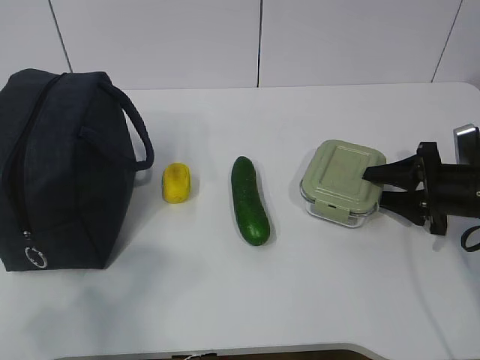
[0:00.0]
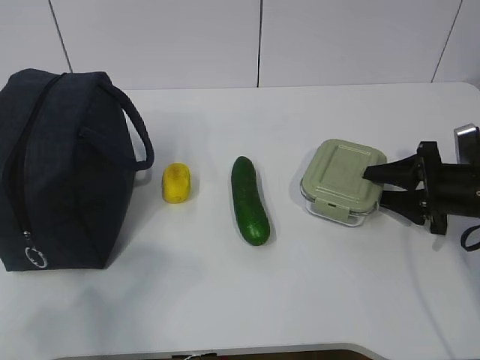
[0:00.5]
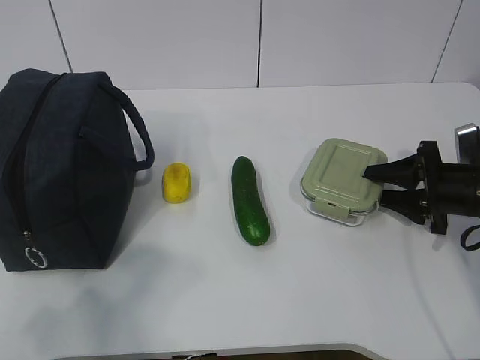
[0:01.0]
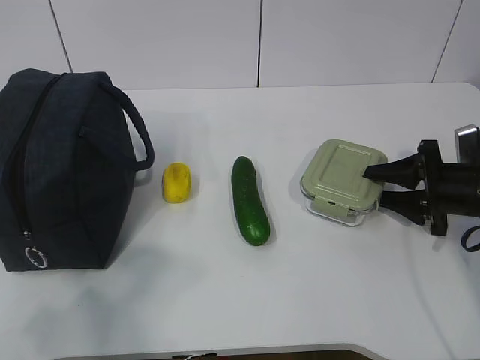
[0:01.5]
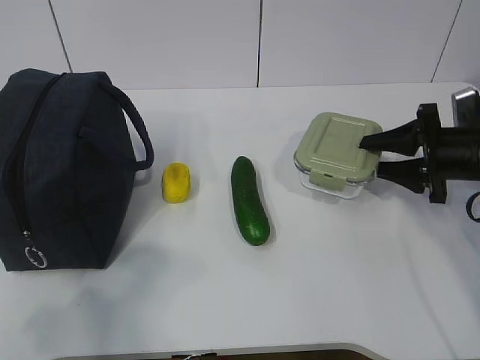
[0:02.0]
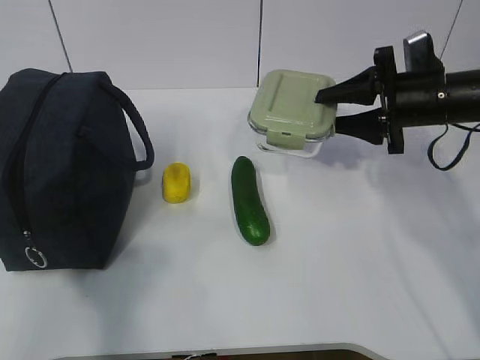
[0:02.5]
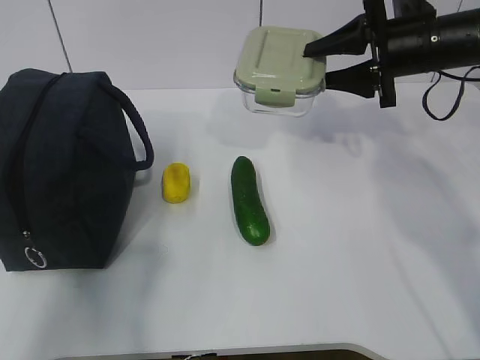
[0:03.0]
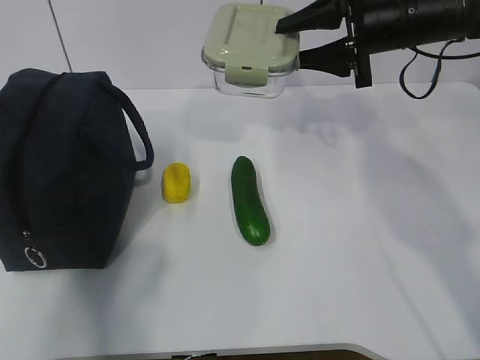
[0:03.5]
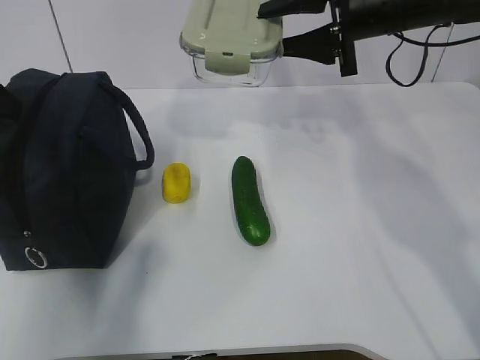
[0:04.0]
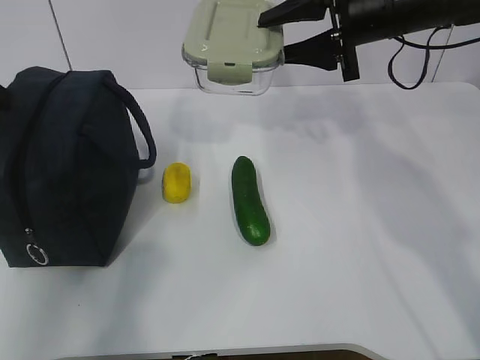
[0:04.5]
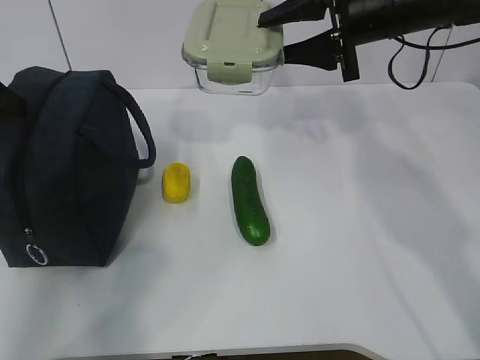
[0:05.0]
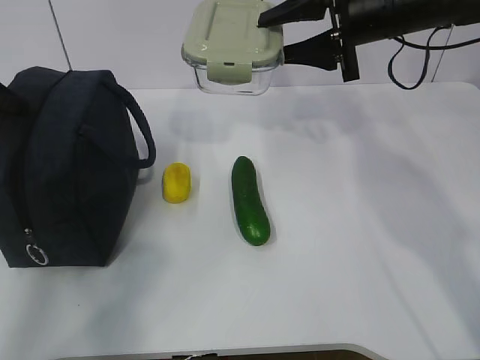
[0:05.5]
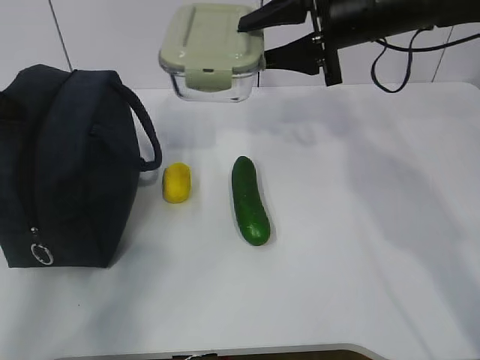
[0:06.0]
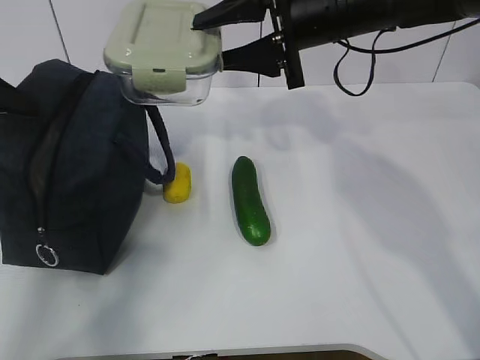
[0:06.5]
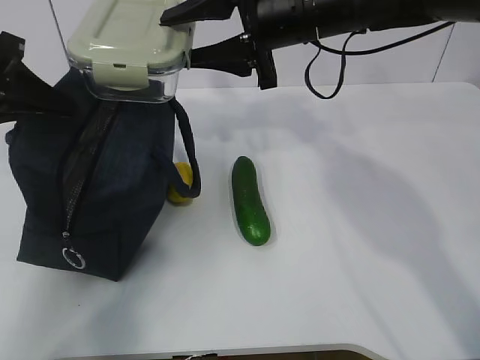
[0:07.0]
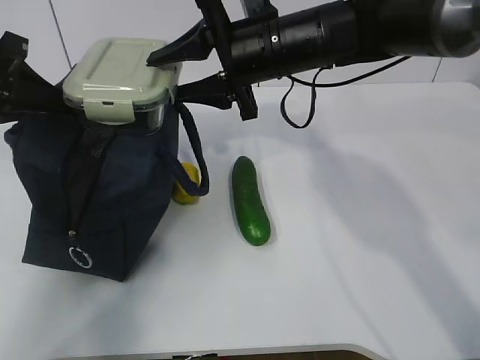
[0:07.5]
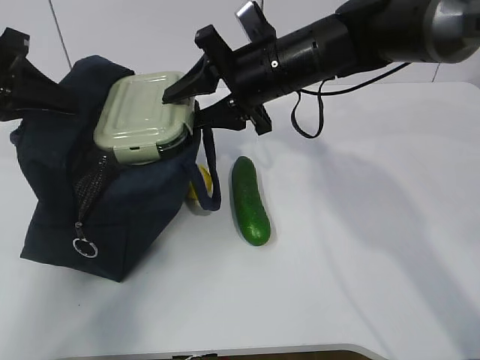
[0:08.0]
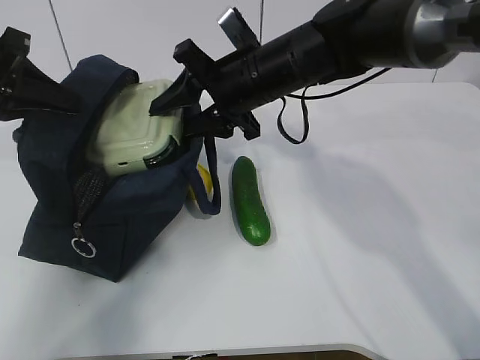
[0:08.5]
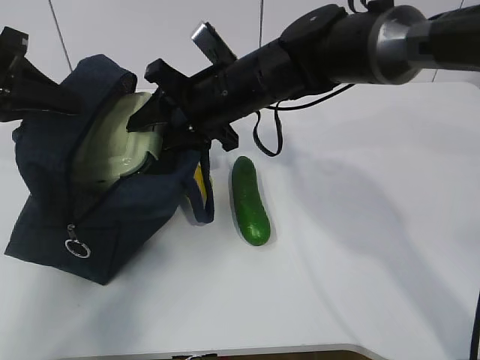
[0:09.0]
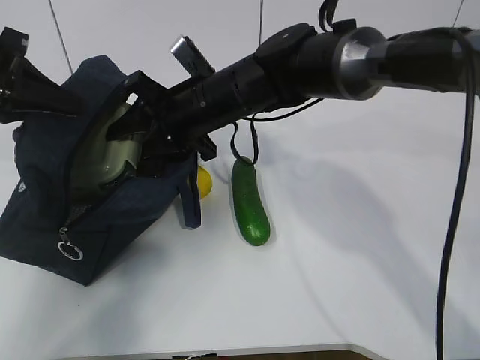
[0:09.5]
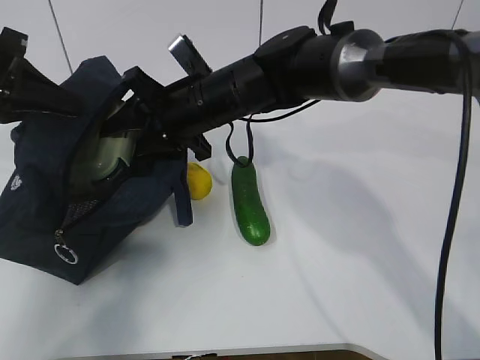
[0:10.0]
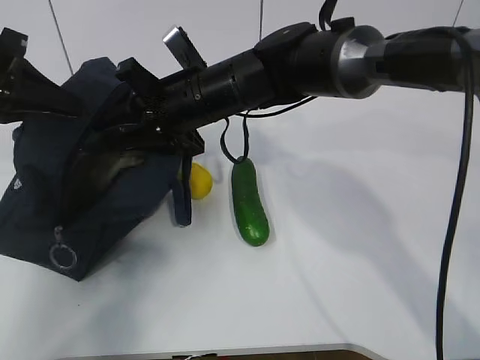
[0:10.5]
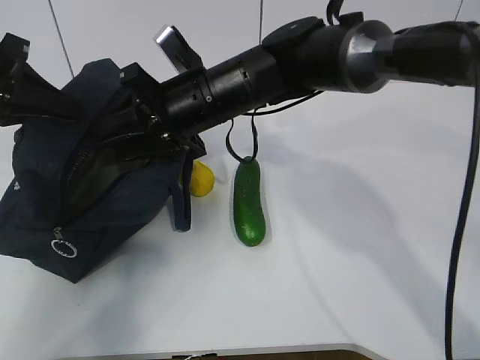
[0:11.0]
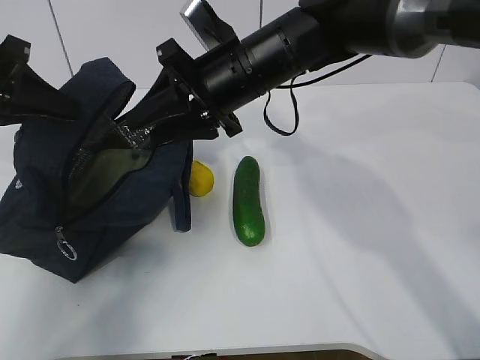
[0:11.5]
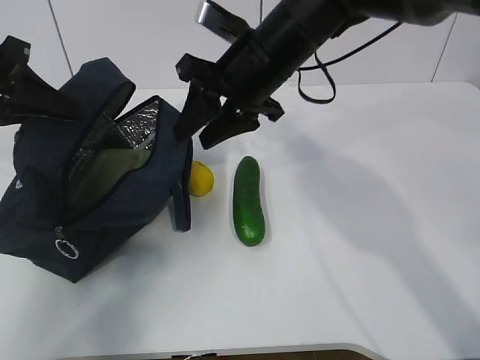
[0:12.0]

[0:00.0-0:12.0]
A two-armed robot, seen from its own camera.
Step, 0:00.0 to 0:04.0: Grab the lunch bag with your left hand.
Step, 0:04.5 to 0:06.5: Place it into the bag with your right hand.
Step, 0:07.0 to 0:11.0: Grab the cucumber with your right hand.
0:00.0 to 0:02.0: The grippers make only small movements.
0:02.0 to 0:04.0: The left gripper heads forward, covering approximately 30 cm; the right gripper goes roughly 20 cm upward and to the left.
0:04.0 to 0:06.0: The left gripper moves roughly 5 cm, and closes.
0:06.0 to 0:08.0: The left gripper goes some 5 cm to the right, while the right gripper travels to the left and downward by roughly 10 cm.
0:08.0 to 0:10.0: The right gripper heads to the left, covering approximately 10 cm.
0:10.0 to 0:12.0: The right gripper shifts about 10 cm to the right and upward.

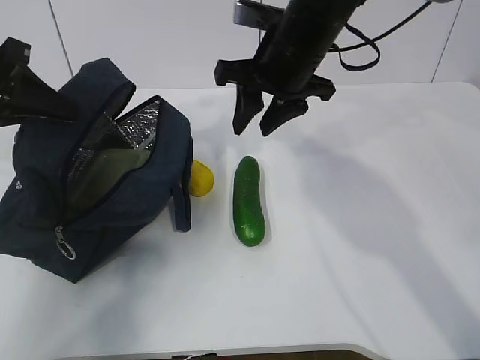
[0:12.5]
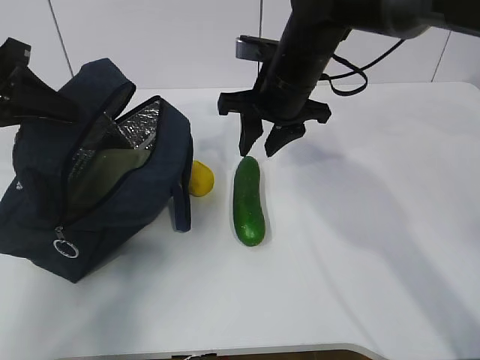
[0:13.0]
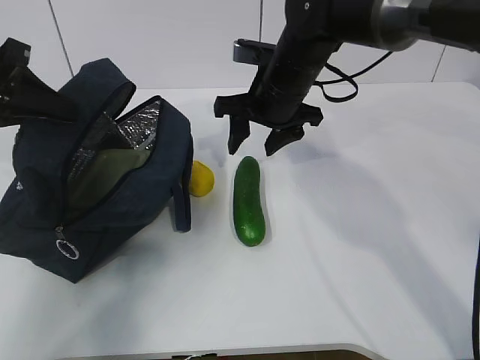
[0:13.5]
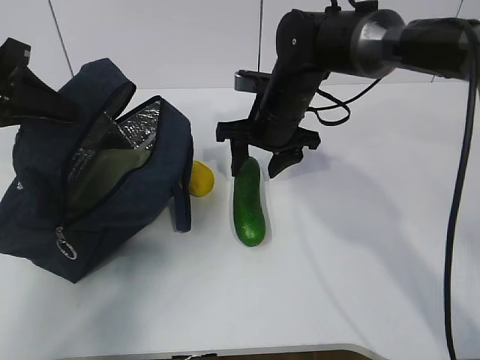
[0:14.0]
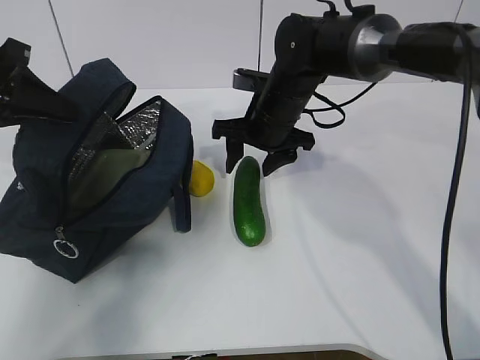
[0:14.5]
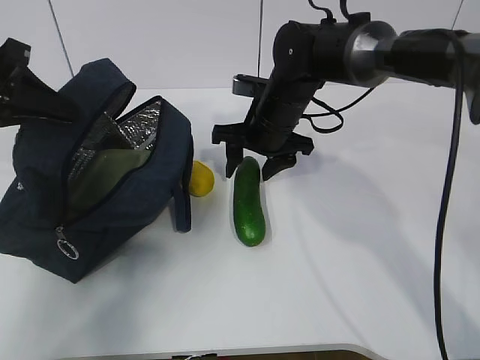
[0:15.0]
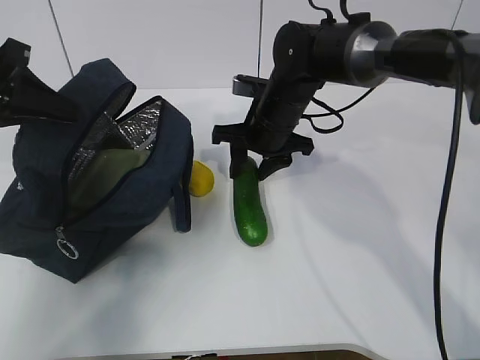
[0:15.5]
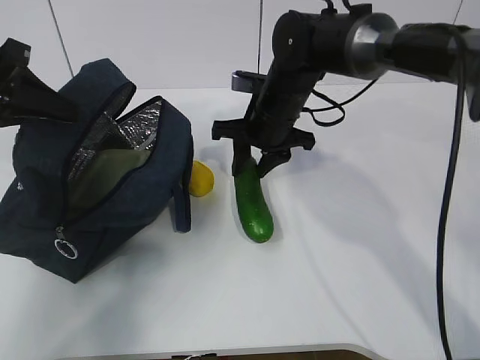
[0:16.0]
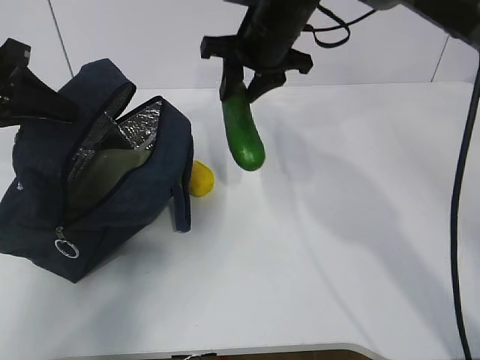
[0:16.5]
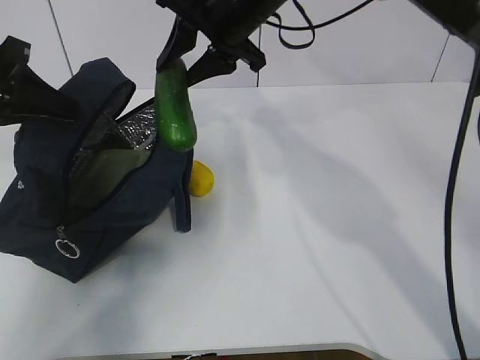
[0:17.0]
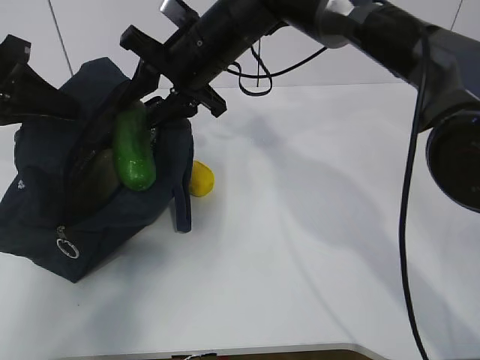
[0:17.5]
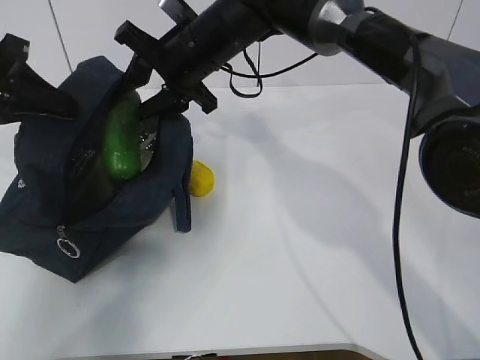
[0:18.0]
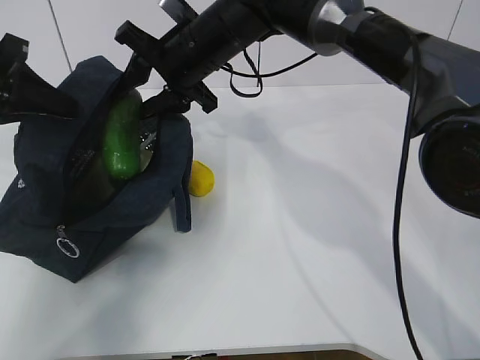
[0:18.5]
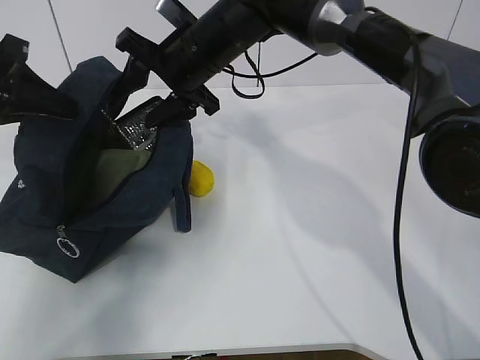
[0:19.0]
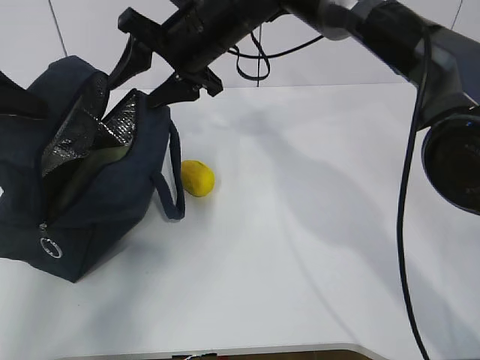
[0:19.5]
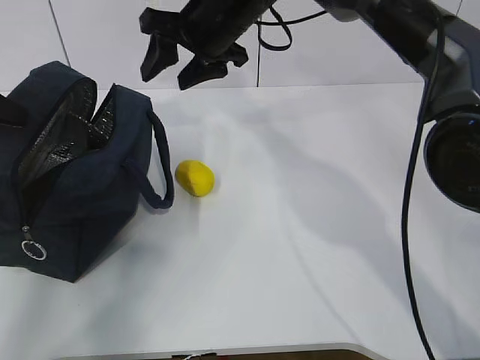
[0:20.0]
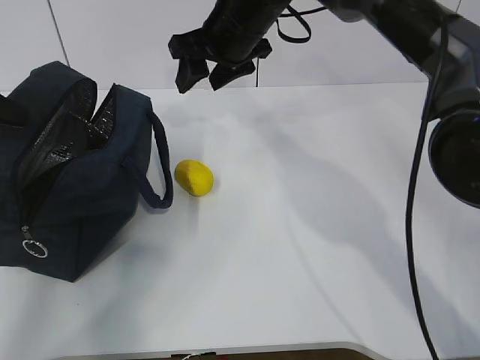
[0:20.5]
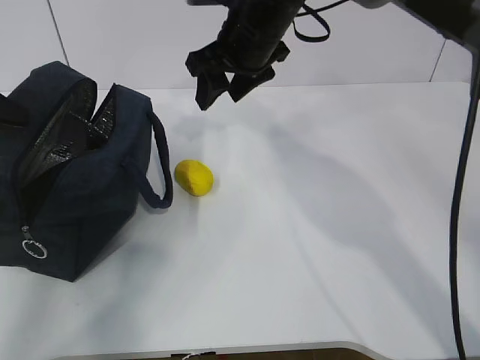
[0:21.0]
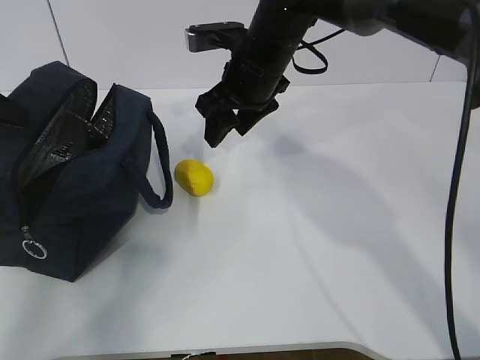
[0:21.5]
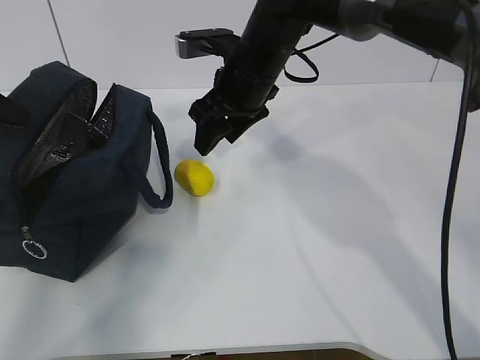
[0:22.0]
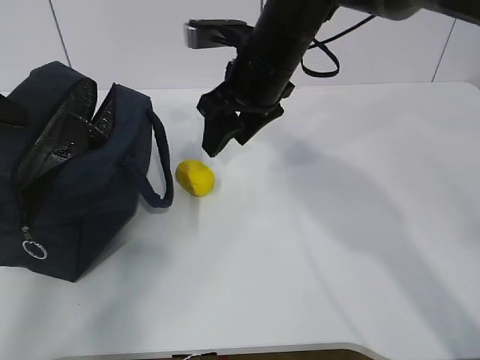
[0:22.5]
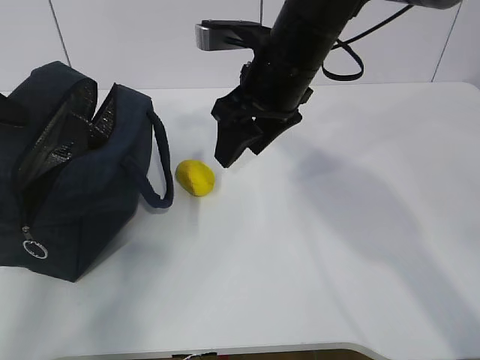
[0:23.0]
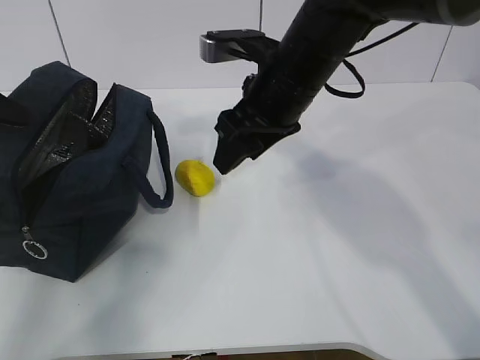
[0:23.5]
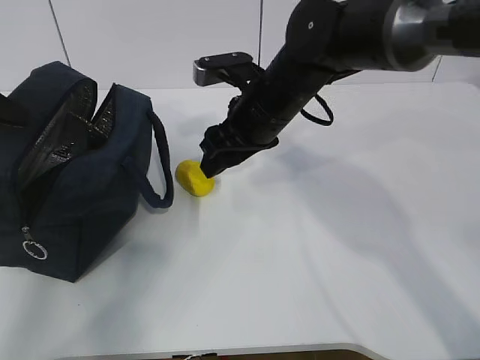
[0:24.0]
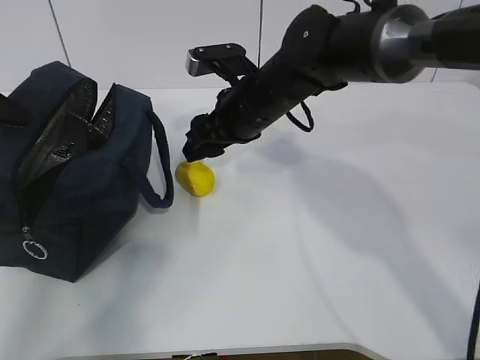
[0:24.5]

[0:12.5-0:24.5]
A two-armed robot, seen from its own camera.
Step, 0:14.0 to 0:20.0: Grab the lemon with your right hand.
0:12.5 to 0:14.5: The right gripper shifts some 10 cm downward.
0:14.5 to 0:16.5: The right gripper heads upward, covering approximately 10 cm.
0:16.5 to 0:18.5: The right gripper heads to the left, covering approximately 10 cm.
0:18.5 to 0:20.5: The right gripper ends up approximately 5 cm from where it was. Meanwhile the left gripper heads to the left, covering roughly 5 cm.
0:20.5 to 0:22.5: The right gripper is displaced backward by some 5 cm.
0:22.5 to 0:24.5: The right gripper goes roughly 5 cm downward.

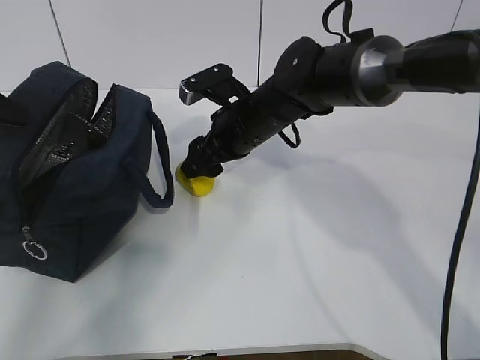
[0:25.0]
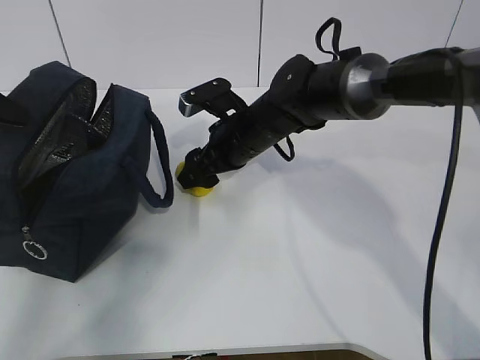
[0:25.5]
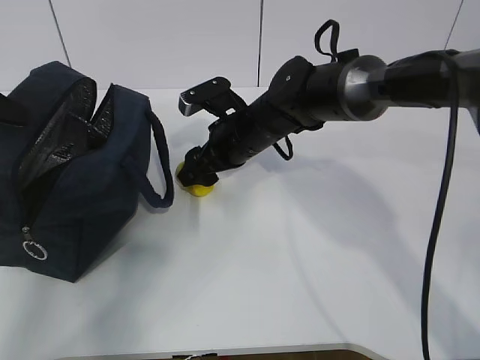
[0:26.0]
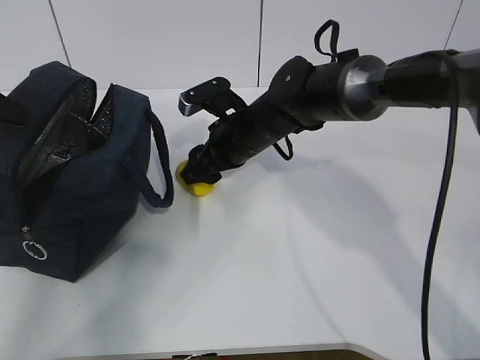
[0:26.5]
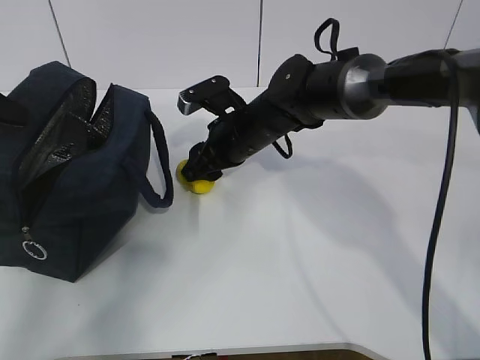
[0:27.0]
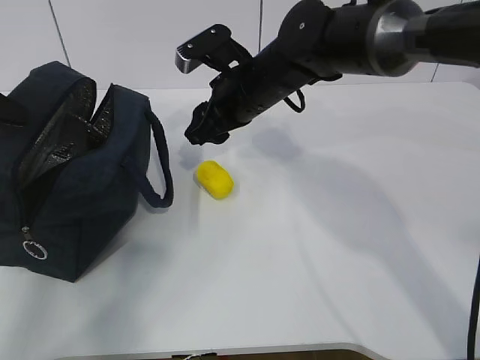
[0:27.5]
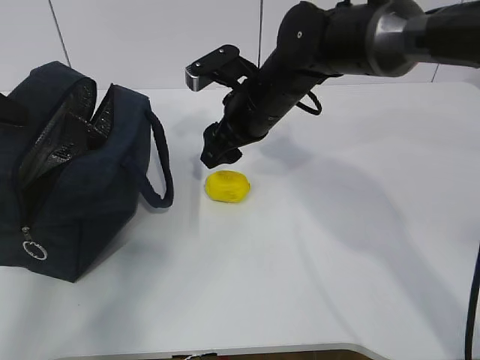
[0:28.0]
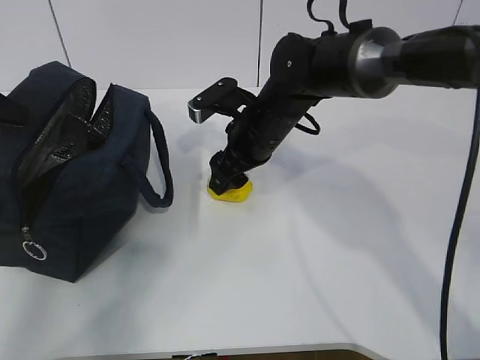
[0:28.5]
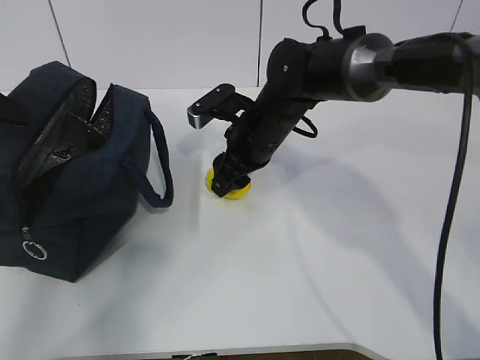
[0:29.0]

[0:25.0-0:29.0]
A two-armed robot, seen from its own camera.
Step, 0:25.0 to 0:26.5: Grab the lunch bag with your right hand.
0:25.0 to 0:27.0: The grippers make only small movements.
